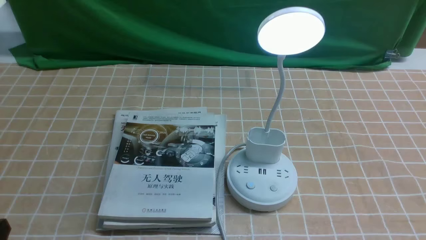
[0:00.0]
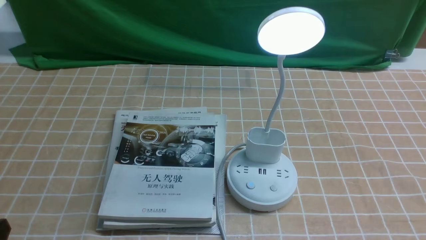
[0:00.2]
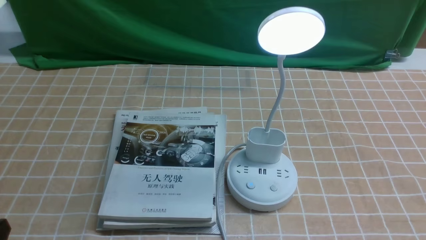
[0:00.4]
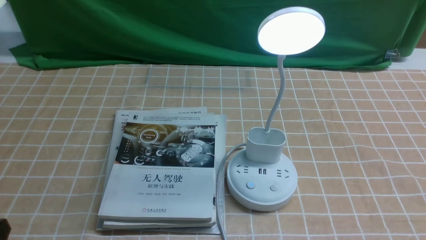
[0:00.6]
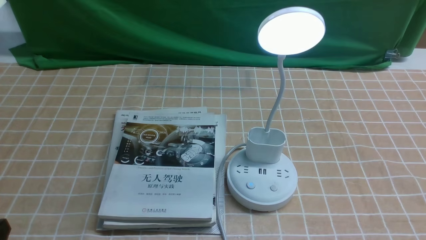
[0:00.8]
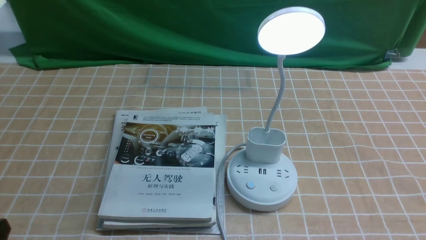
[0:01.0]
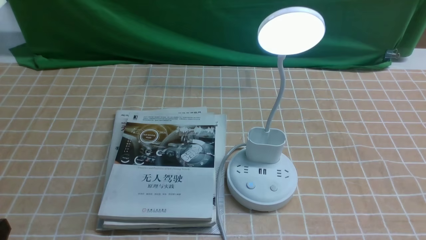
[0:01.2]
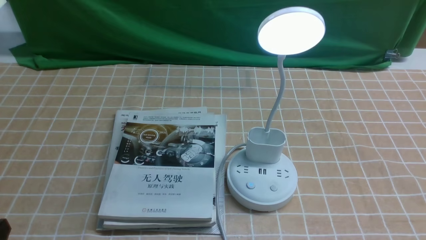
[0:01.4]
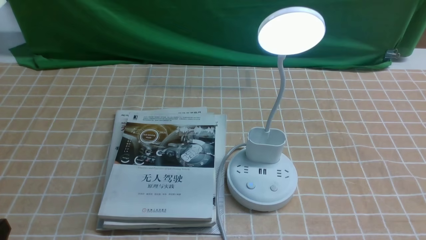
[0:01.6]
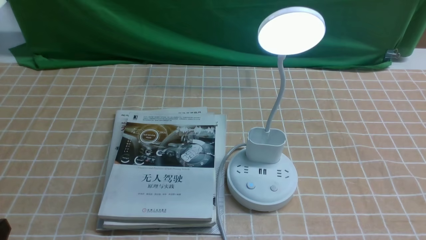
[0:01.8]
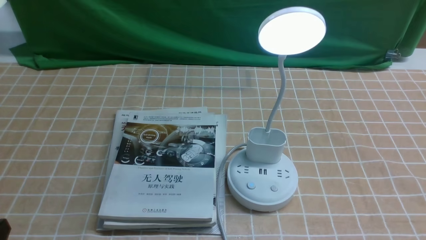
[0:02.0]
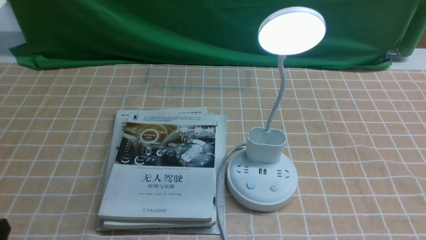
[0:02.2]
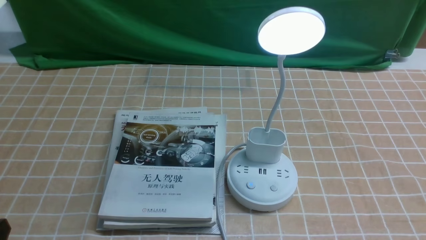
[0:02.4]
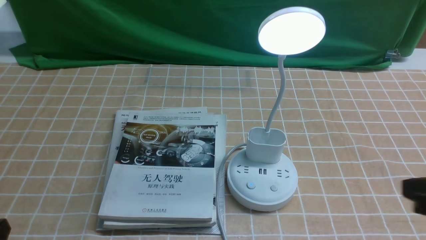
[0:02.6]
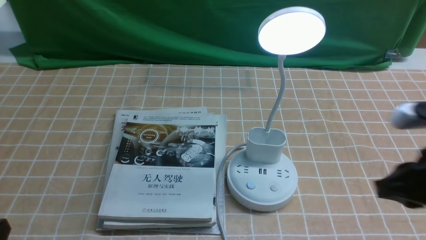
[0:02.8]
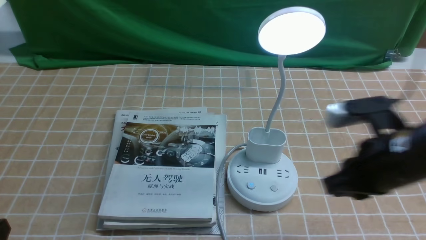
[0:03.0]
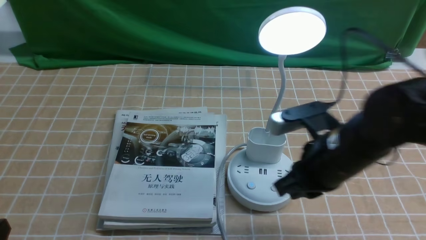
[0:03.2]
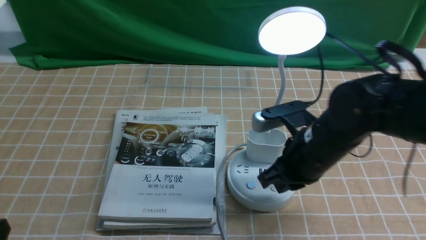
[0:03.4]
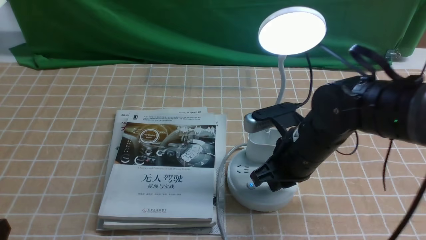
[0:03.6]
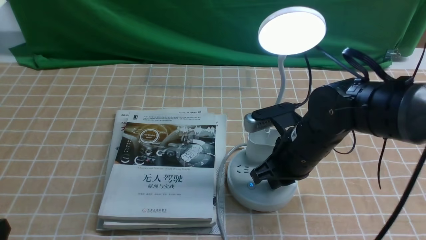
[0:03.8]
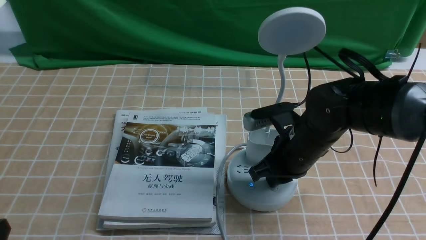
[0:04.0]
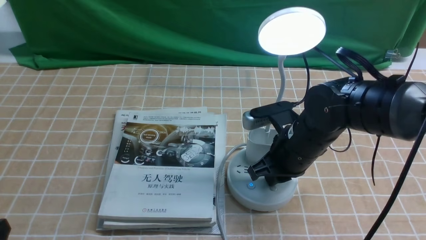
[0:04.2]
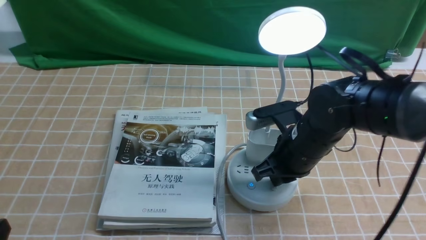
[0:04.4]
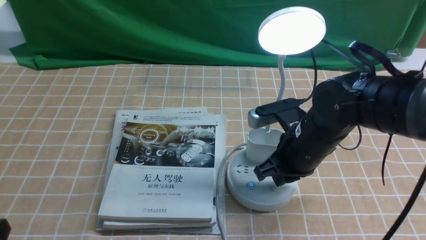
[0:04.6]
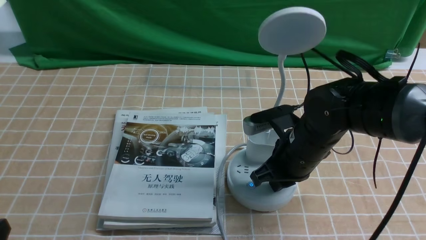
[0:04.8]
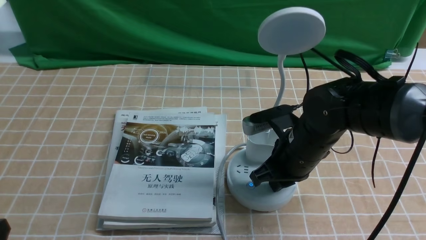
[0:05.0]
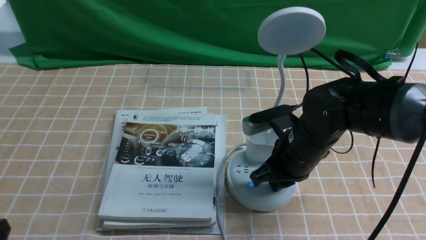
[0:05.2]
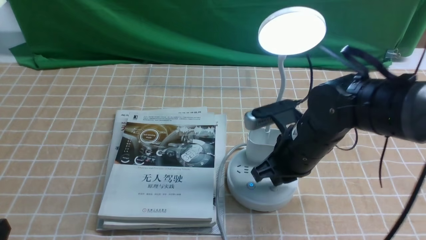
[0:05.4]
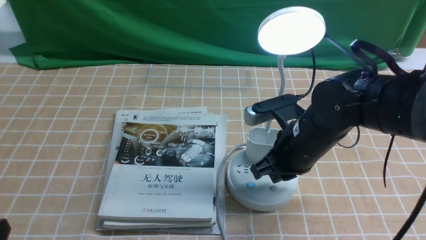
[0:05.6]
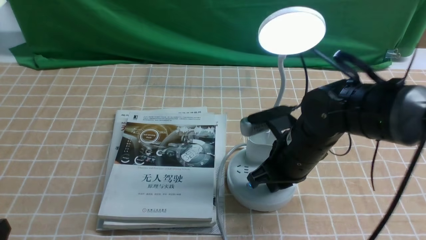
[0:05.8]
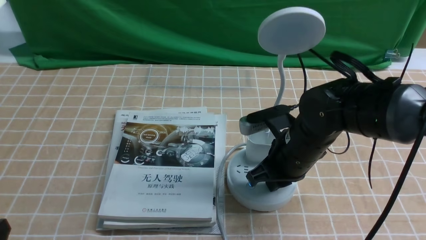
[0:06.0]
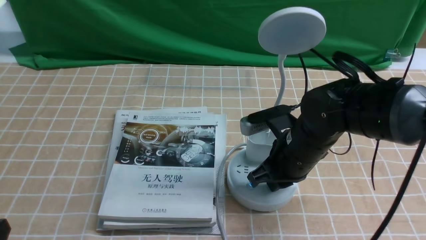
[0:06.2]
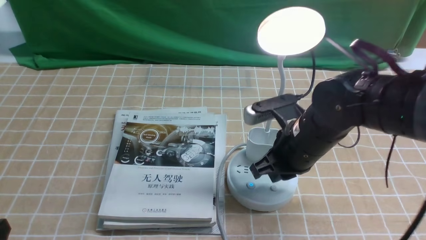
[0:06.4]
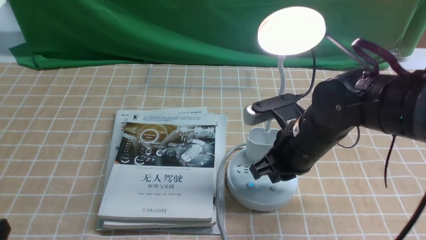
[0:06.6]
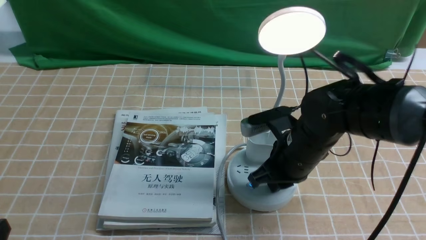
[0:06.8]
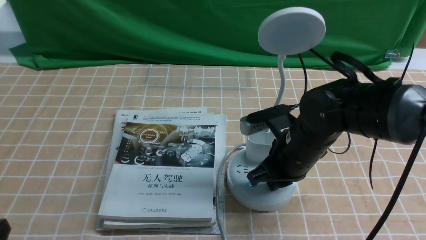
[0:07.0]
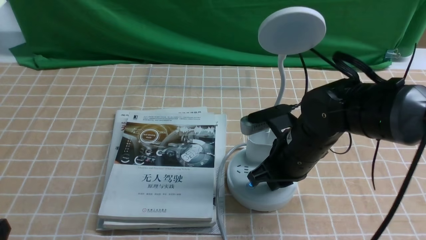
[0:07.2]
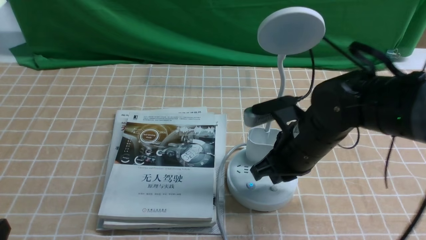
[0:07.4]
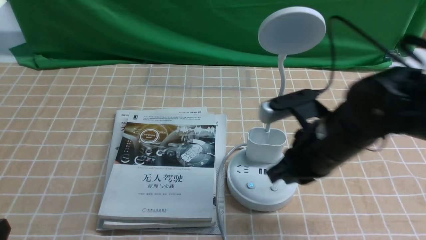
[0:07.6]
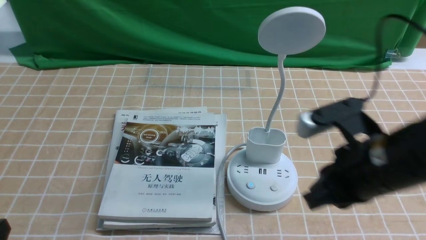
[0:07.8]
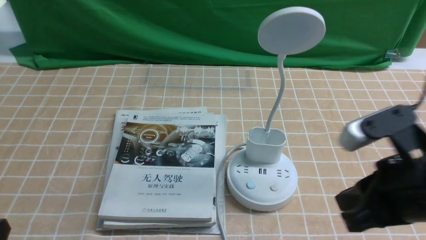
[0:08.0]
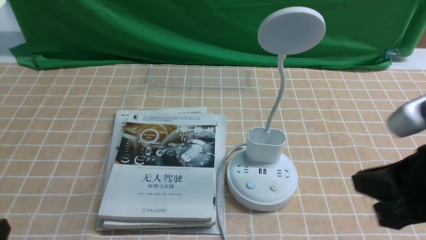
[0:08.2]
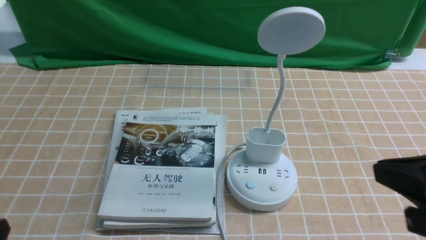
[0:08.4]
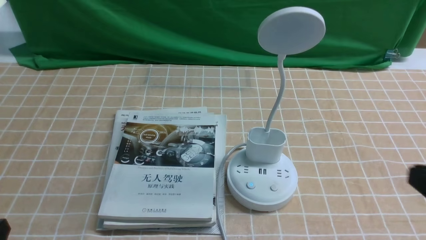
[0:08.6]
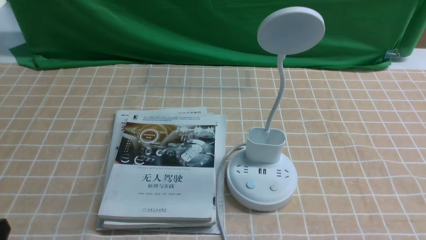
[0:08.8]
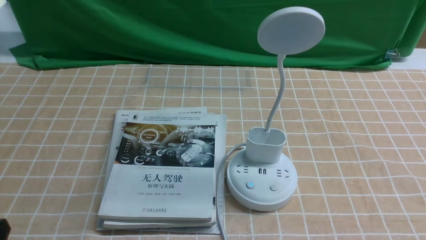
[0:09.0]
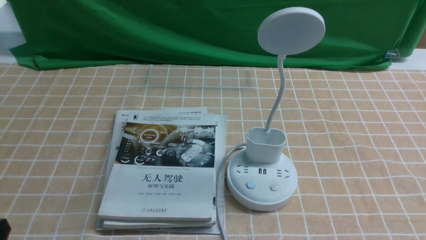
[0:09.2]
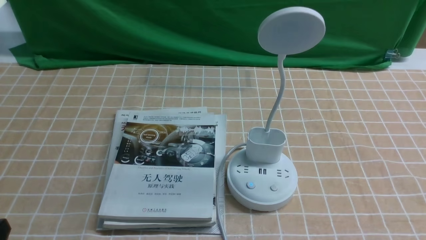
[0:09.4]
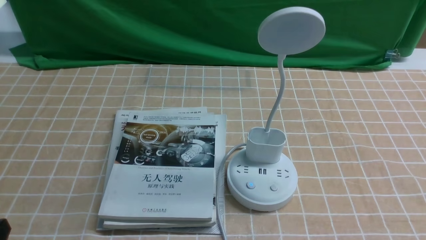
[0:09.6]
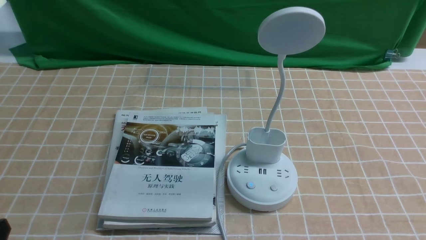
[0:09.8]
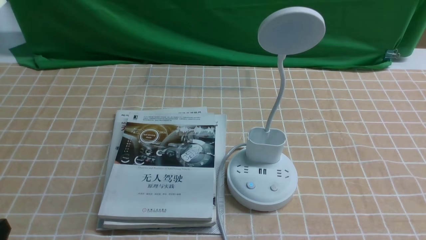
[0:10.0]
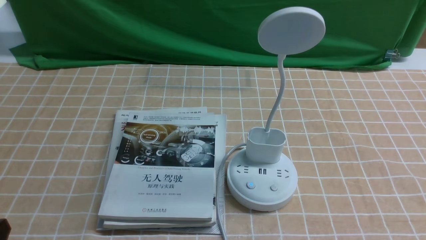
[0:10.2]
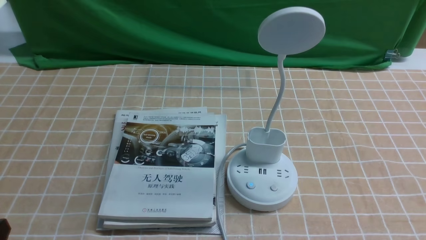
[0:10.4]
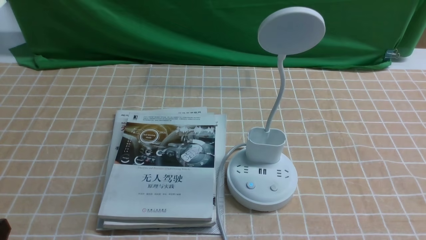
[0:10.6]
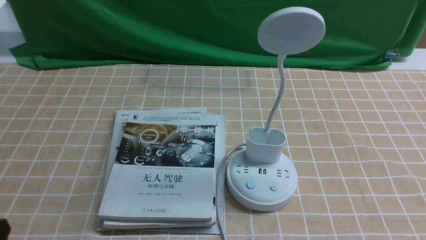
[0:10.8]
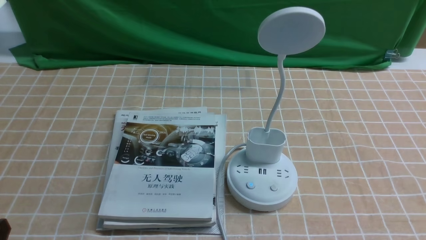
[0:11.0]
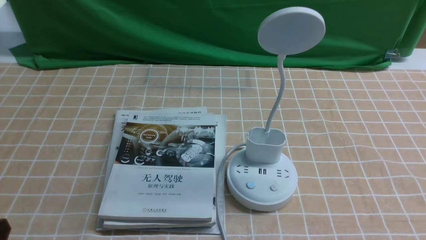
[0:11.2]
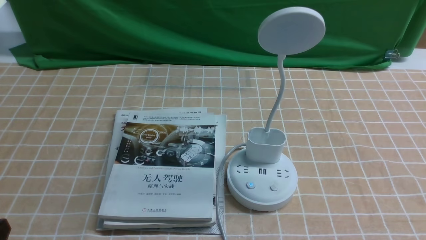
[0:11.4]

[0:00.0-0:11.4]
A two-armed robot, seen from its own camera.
Task of the whole recording: turn off the desk lamp on the light coffee tablecloth by hand.
Step, 0:00.0 to 0:07.4: use the right arm to press the button switch on the lamp holder.
0:01.4 to 0:02.8: The right gripper shifts about 15 cm forward and upward, and closes its fingers.
0:02.8 to 0:04.2: The right gripper moves forward, to the left and downward, approximately 20 cm.
0:04.2 to 0:07.2: There are only small adjustments of the grippers.
0:07.2 to 0:08.6: The right gripper goes some 25 cm backward, to the right and upward.
